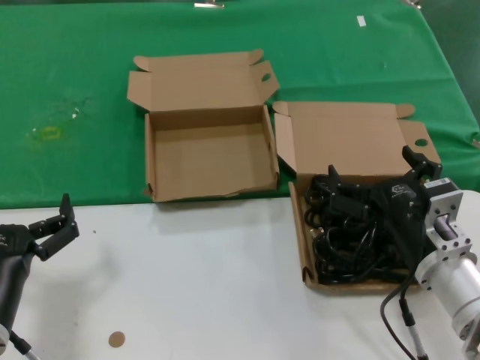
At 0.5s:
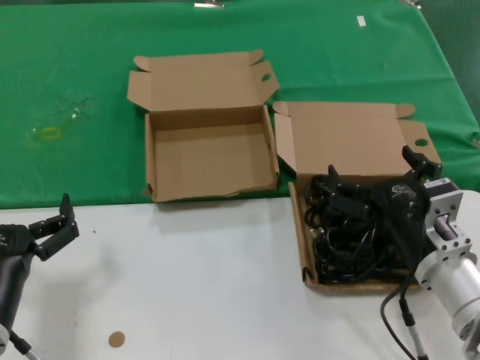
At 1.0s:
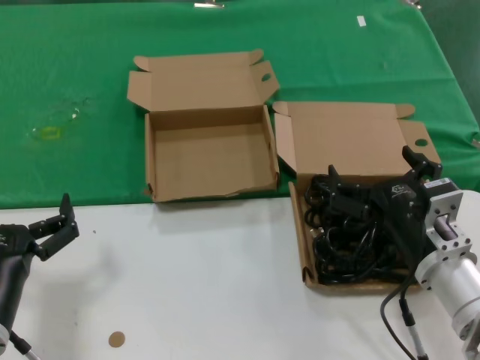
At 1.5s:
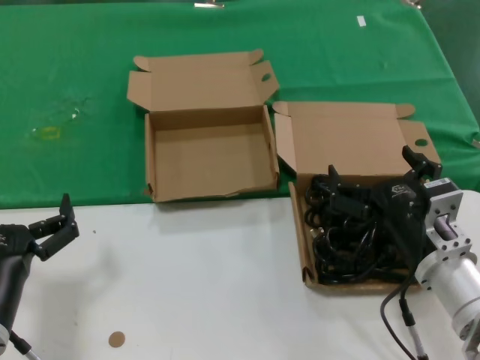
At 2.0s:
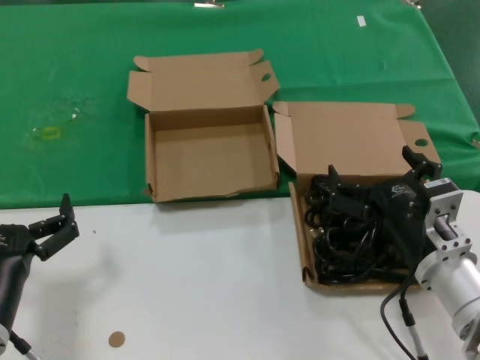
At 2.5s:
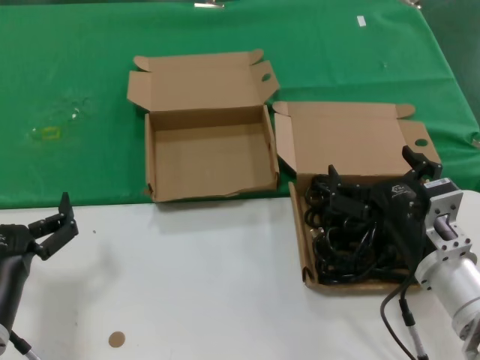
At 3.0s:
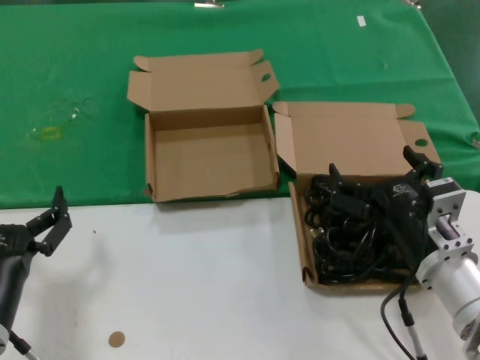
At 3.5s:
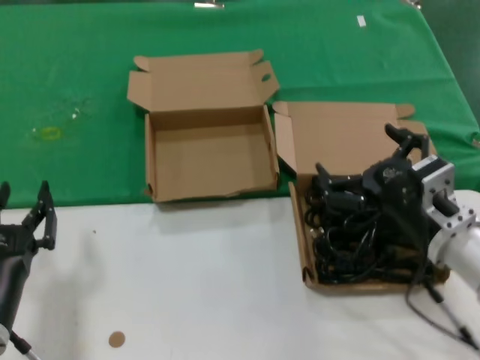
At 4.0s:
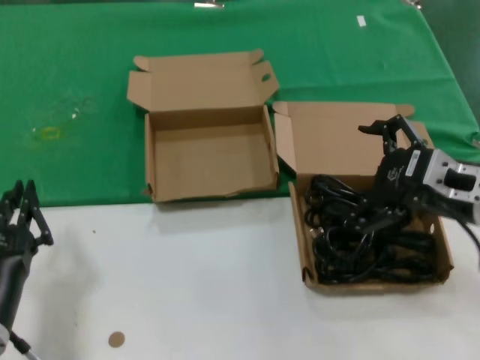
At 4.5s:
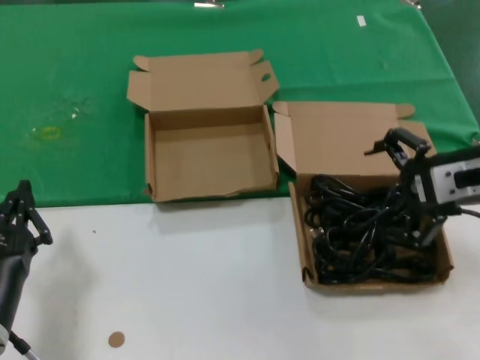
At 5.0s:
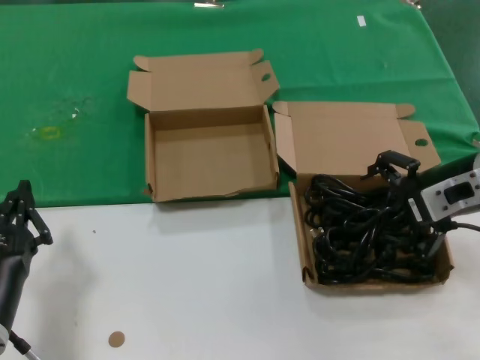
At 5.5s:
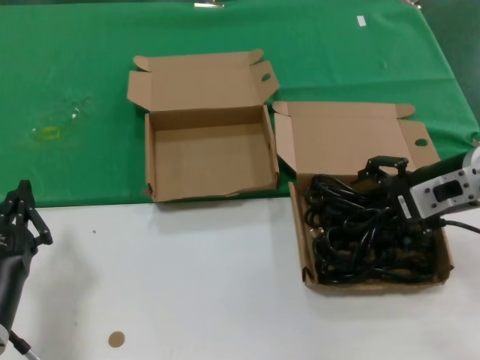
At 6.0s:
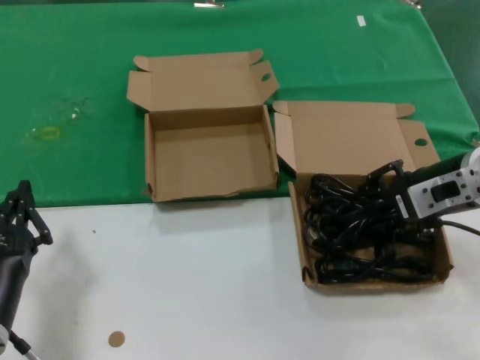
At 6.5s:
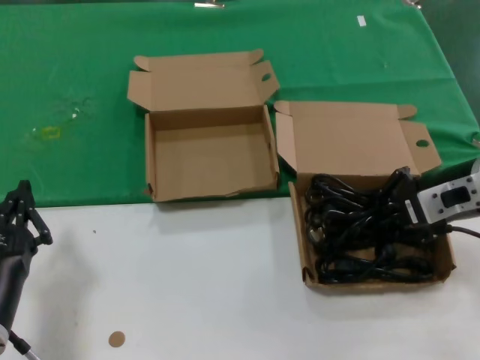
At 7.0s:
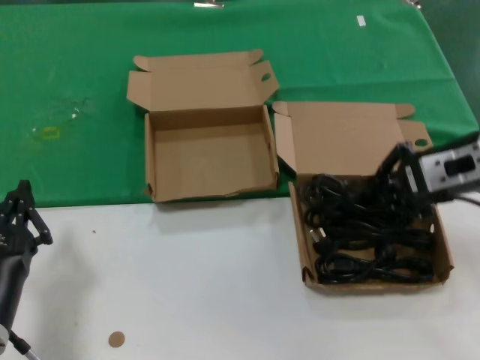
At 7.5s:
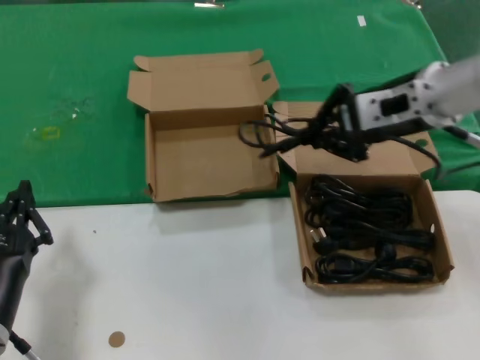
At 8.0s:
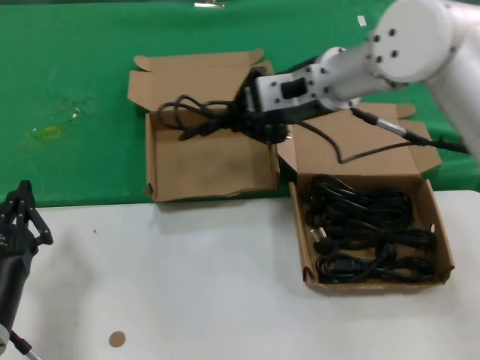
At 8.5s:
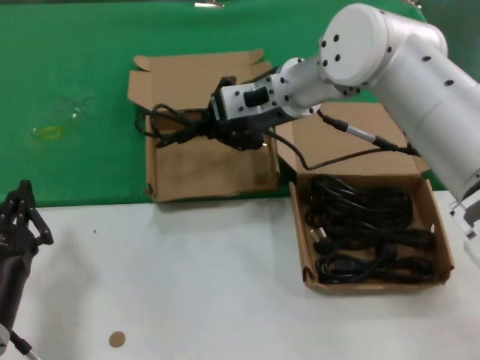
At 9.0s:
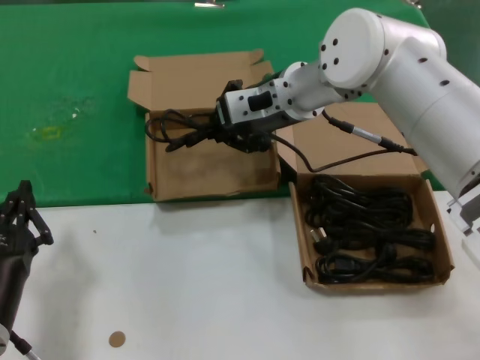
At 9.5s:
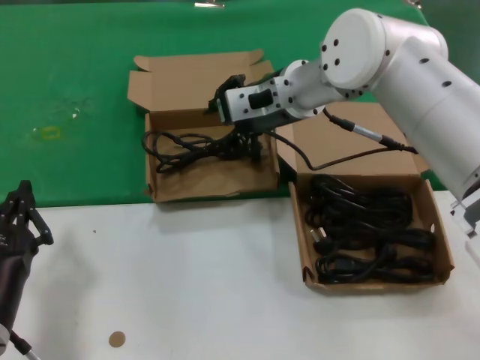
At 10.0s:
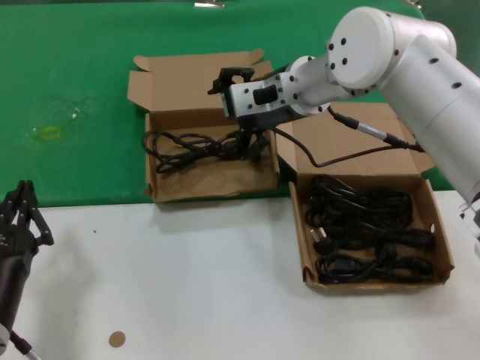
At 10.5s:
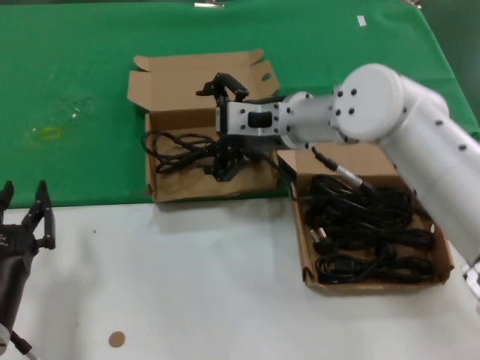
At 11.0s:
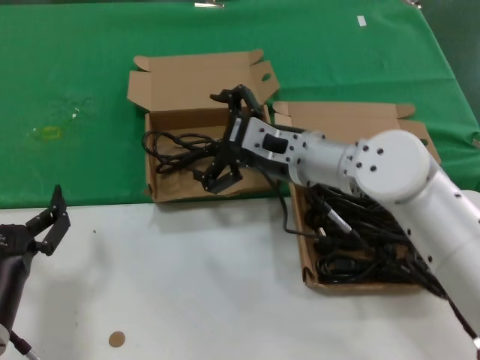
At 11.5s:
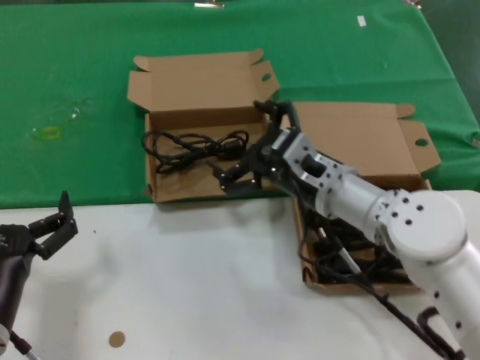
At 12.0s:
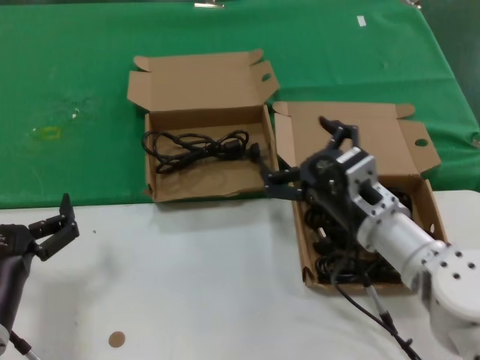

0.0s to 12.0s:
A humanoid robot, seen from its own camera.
Task of the whole recording: take the parts from the box containing them and put them into an empty box.
Step, 0.0s to 6.5s: Grasp the data cable.
Step, 7.0s to 9.5s: Place the data cable in the another box.
0.0s to 2.0s: The two hands keep their place.
2.0s to 4.0s: The right hand shifts roughly 15 cm upward and to the right.
4.0s to 6.0s: The right hand travels forward by approximately 5 cm.
6.0s to 8.0s: The right hand goes some 20 cm to the left, upward and forward.
8.0s to 10.0s: The right hand ends up roughly 5 cm from where it was.
10.0s to 12.0s: The right hand is displaced downward, backward and to the right by about 25 cm.

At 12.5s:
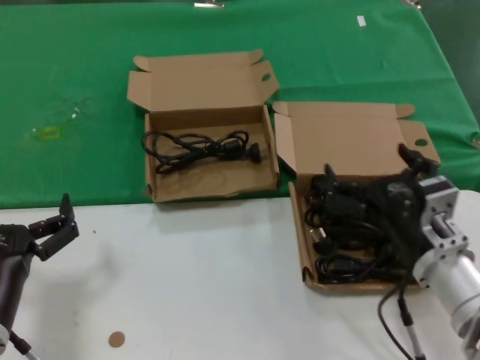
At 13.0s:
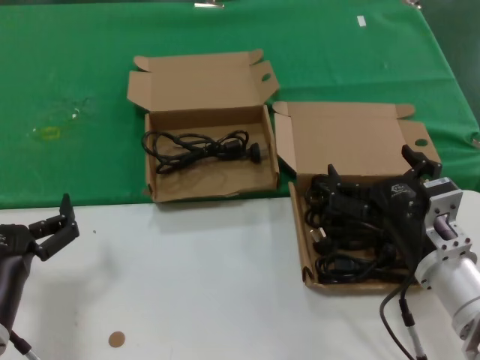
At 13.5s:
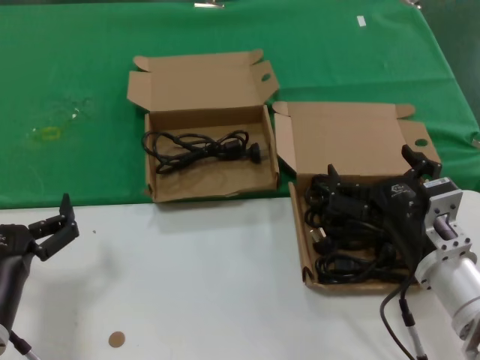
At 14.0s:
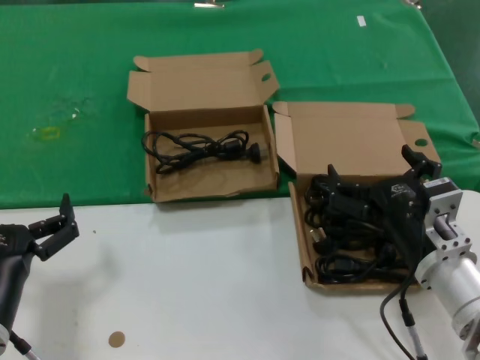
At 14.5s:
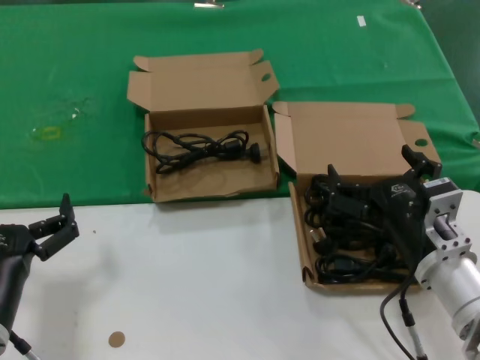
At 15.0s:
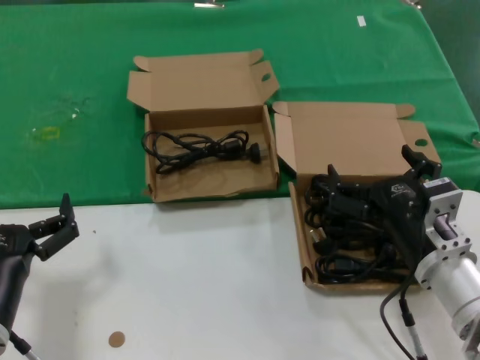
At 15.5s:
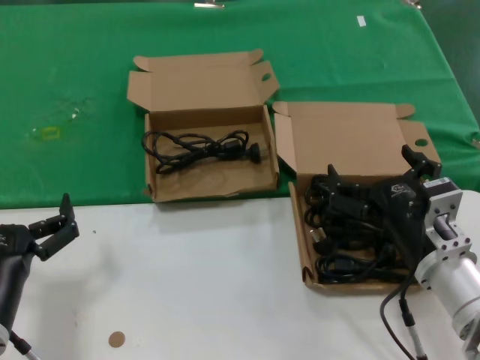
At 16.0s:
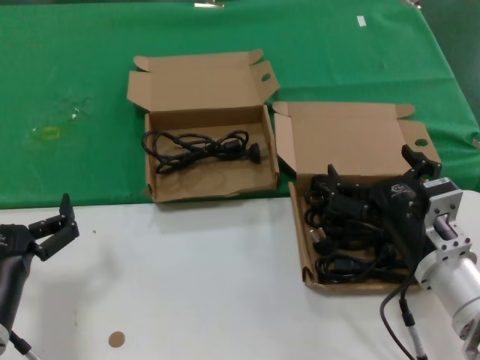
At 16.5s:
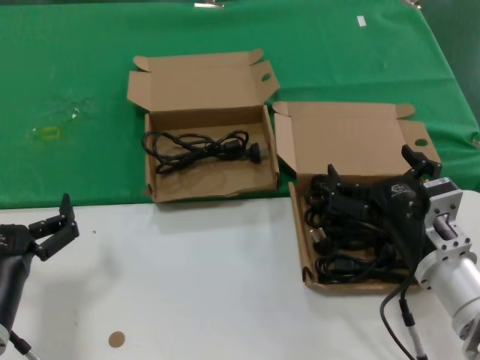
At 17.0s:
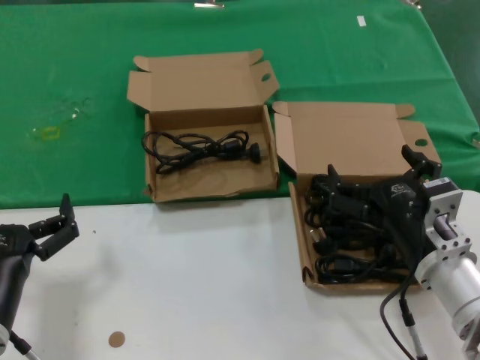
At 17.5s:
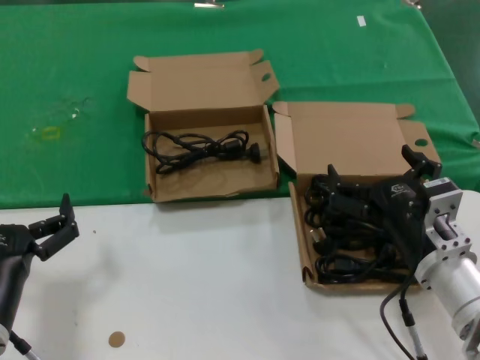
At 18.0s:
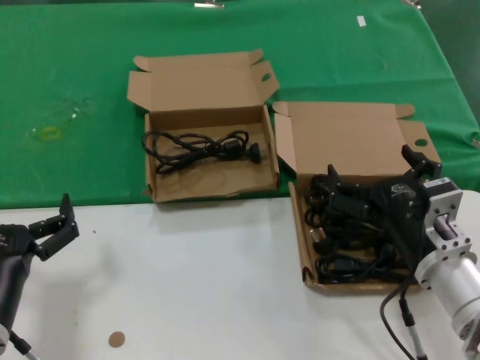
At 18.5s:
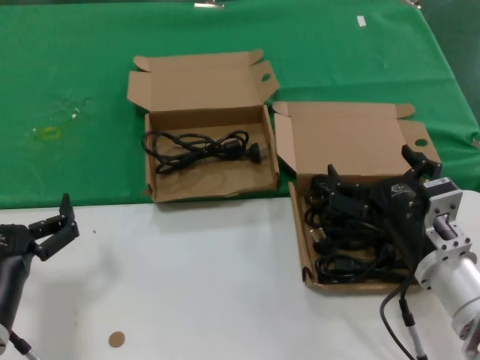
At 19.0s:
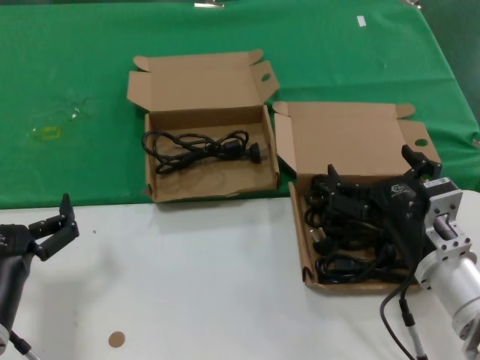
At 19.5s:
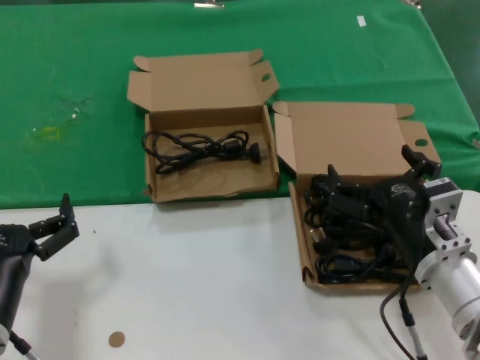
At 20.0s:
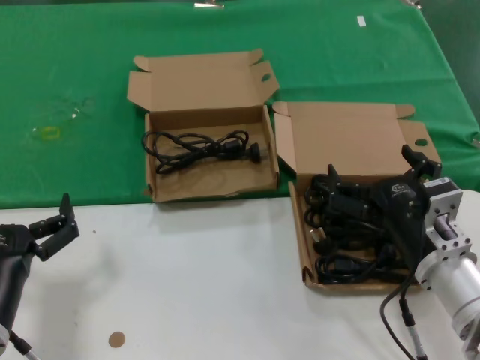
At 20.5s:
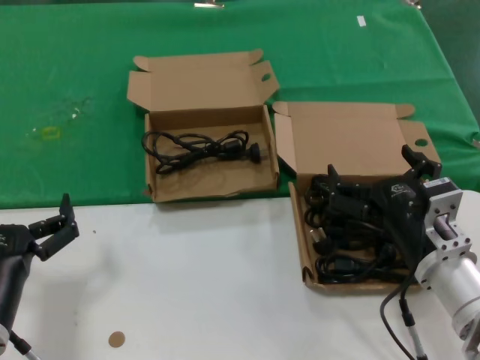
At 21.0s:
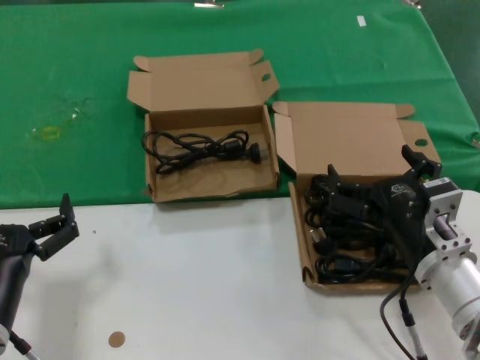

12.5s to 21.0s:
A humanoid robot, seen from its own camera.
Task of the whole recording: take the parts from the box containing them and put them into an empty box.
12.5s to 21.0s: Both hands stay put.

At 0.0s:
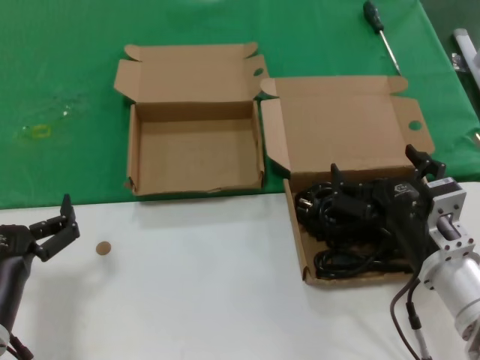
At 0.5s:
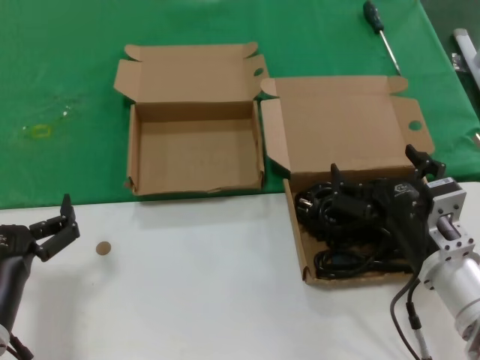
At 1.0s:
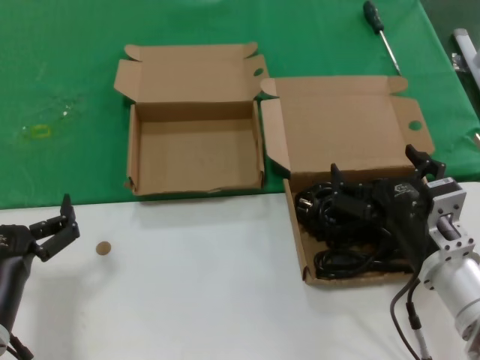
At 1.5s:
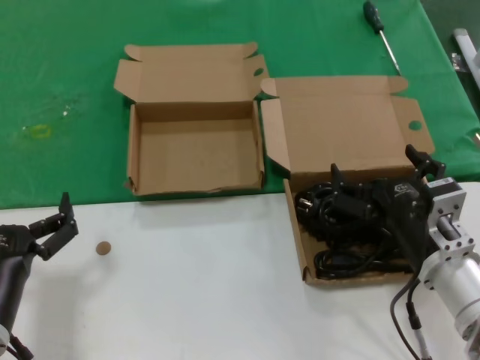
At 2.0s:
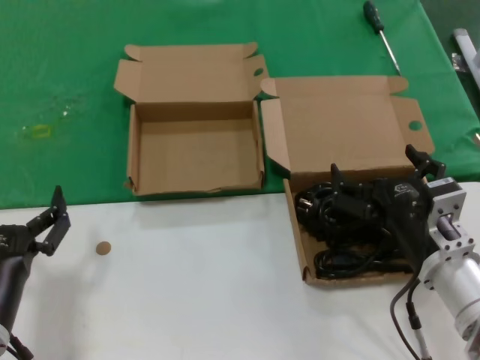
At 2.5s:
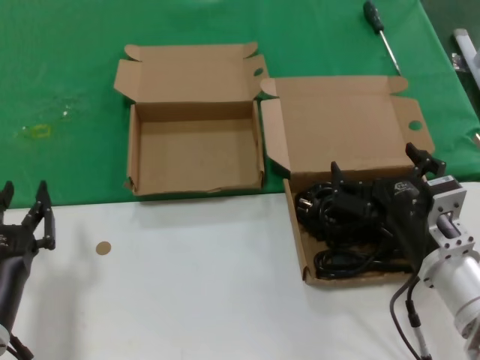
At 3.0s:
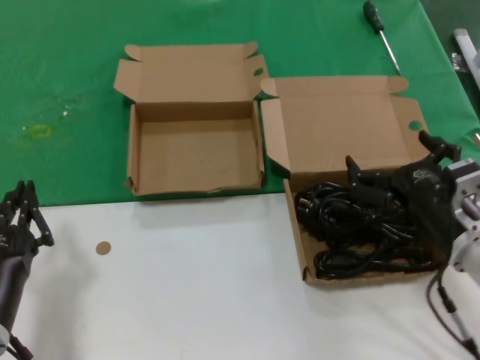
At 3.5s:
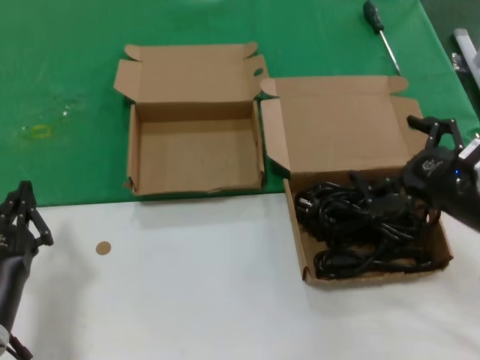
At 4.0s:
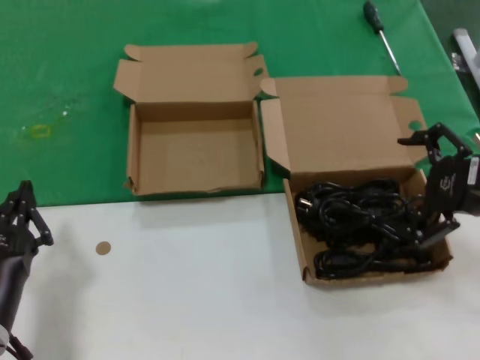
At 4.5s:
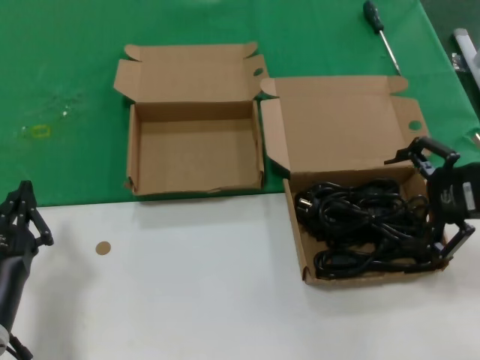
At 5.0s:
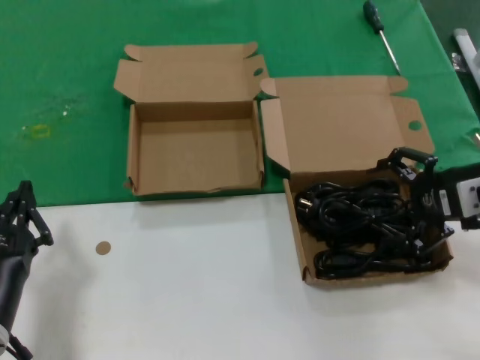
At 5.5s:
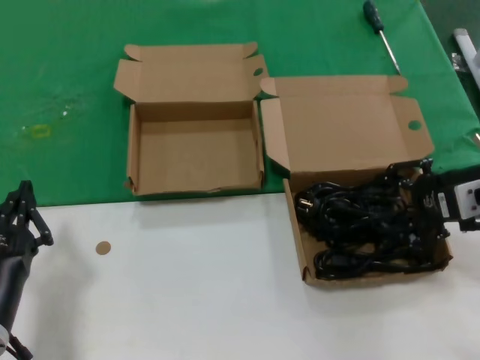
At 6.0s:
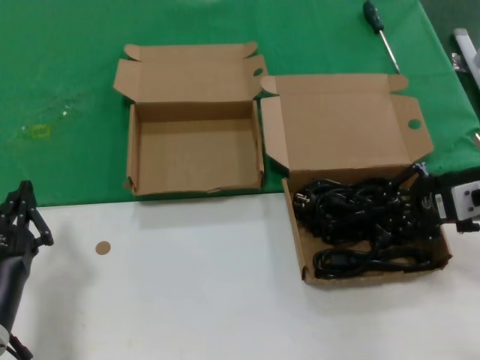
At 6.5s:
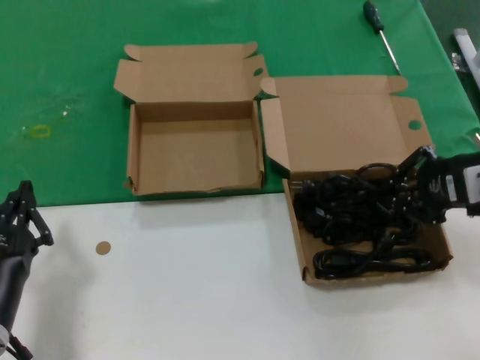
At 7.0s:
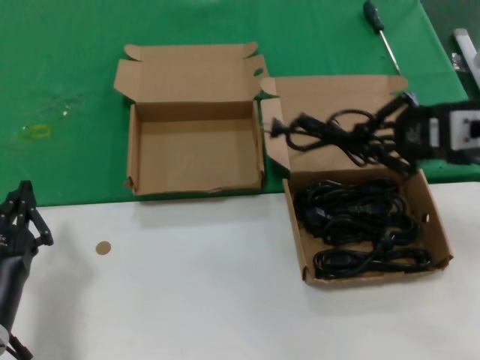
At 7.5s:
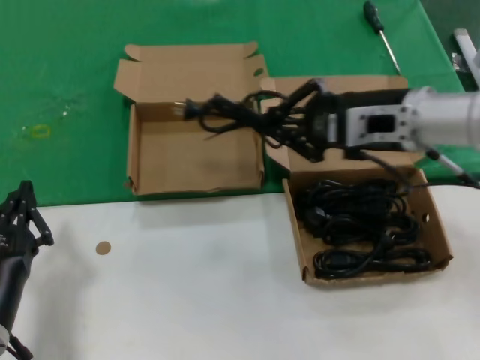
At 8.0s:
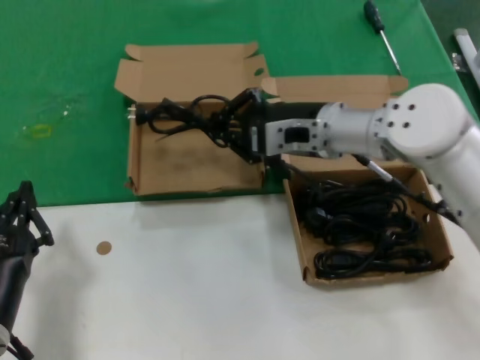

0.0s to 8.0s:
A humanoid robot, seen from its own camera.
Task of the whole recording: take the parts from the box containing them and put them into an empty box.
Step, 0.0s to 6.0s: Grasp the data cable.
0.0s to 2.0s: Both hands stay about where they are.
2.0s to 4.0s: The right hand is displaced to the right and upward by about 20 cm.
4.0s to 6.0s: The right hand heads forward, covering approximately 5 cm.
6.0s to 8.0s: The right hand travels to the left and forward by about 20 cm.
